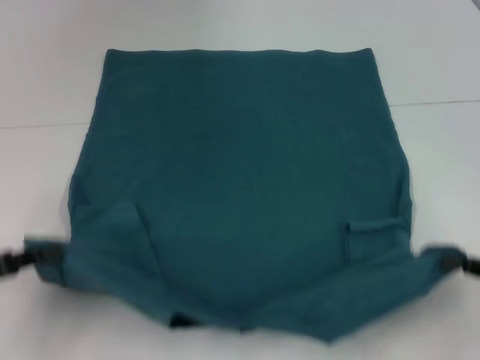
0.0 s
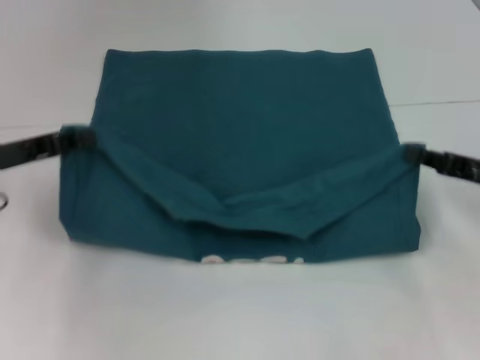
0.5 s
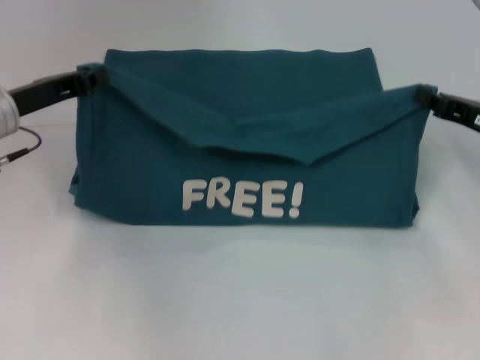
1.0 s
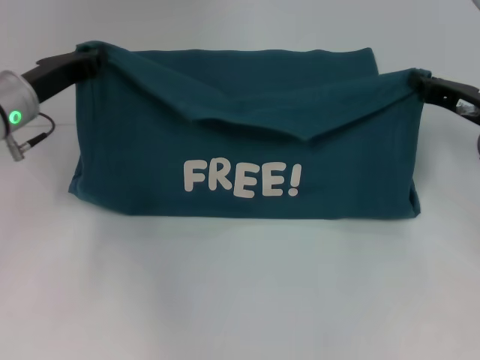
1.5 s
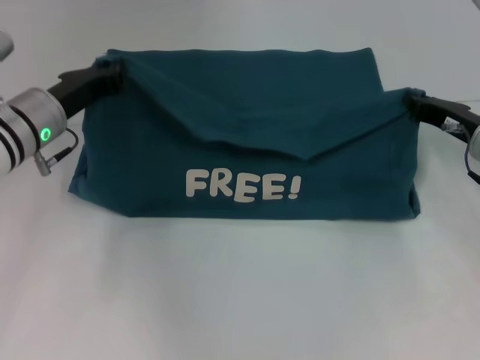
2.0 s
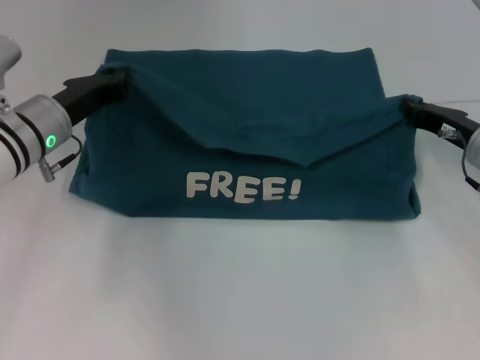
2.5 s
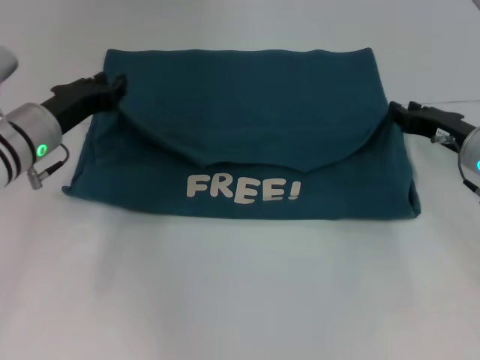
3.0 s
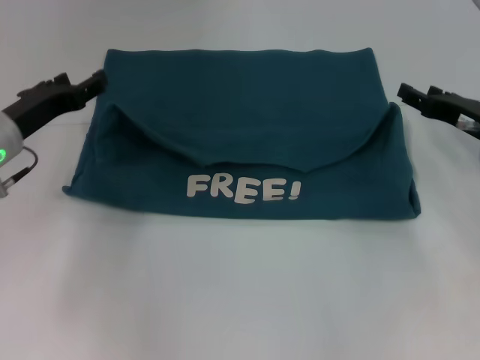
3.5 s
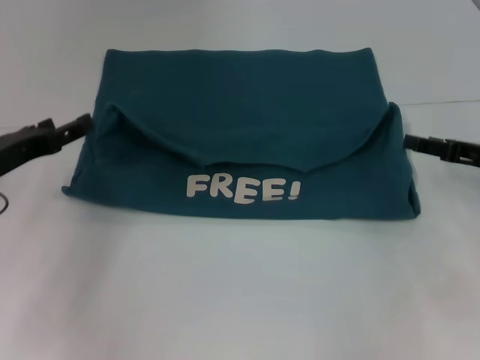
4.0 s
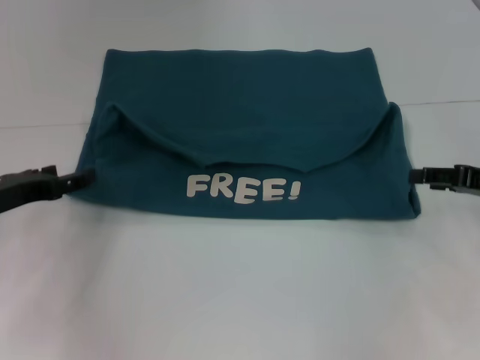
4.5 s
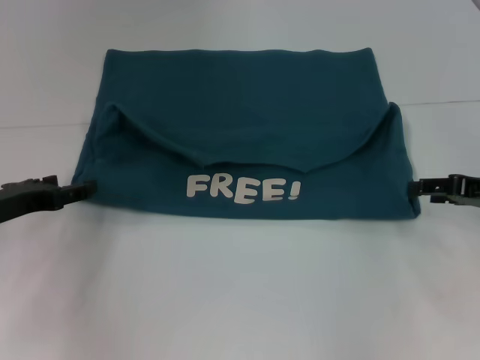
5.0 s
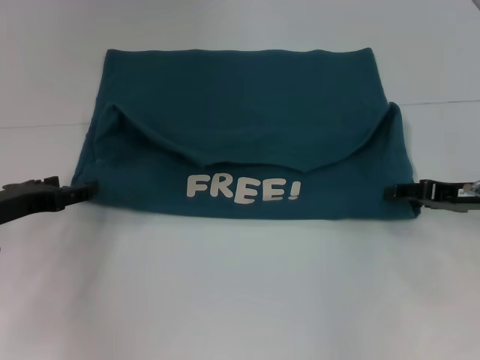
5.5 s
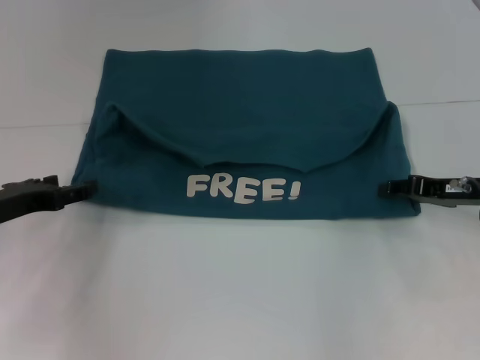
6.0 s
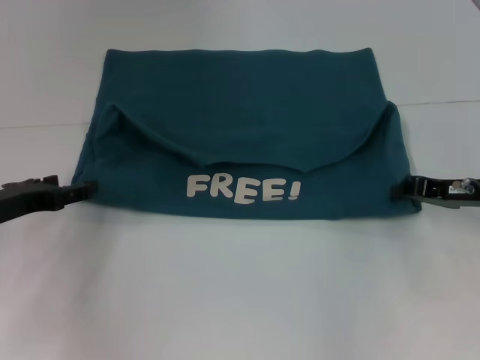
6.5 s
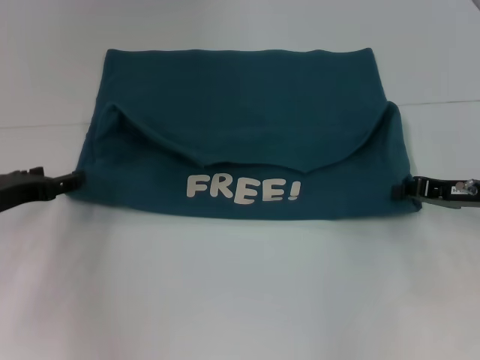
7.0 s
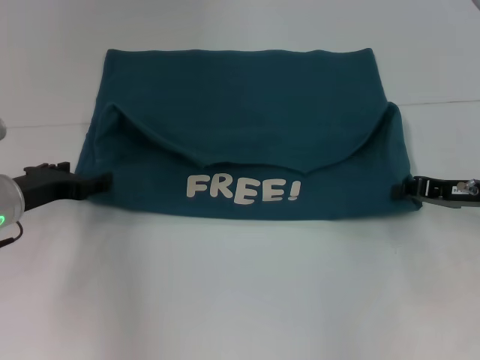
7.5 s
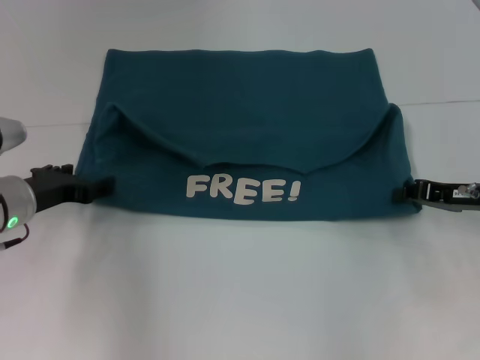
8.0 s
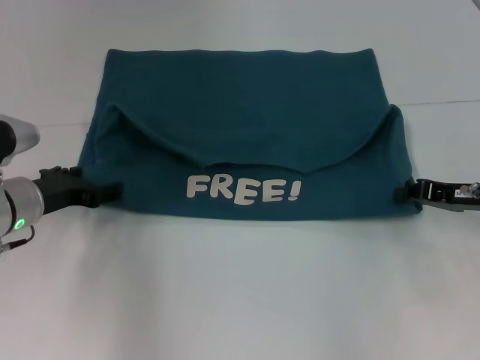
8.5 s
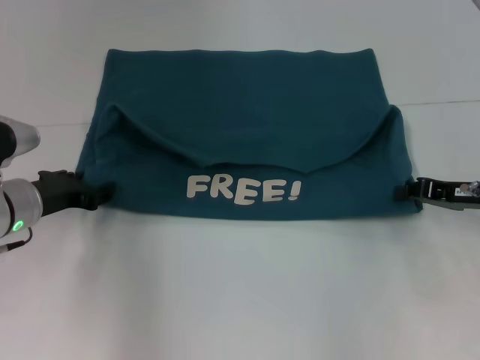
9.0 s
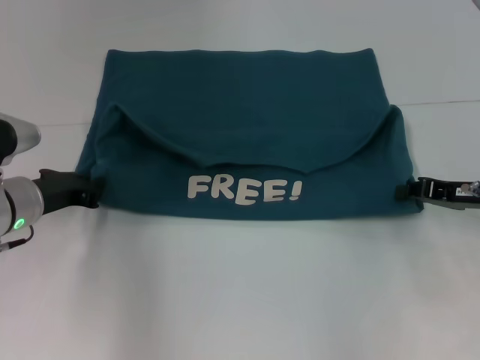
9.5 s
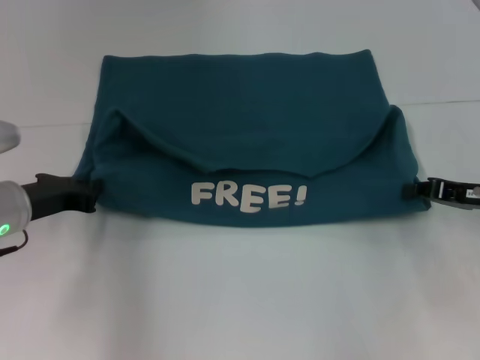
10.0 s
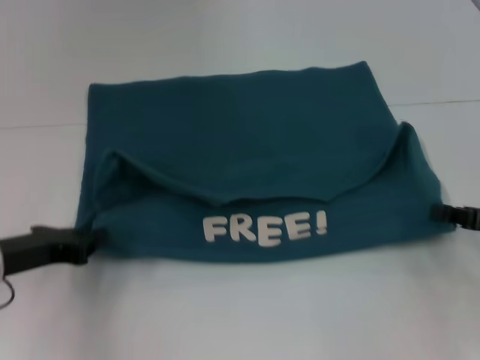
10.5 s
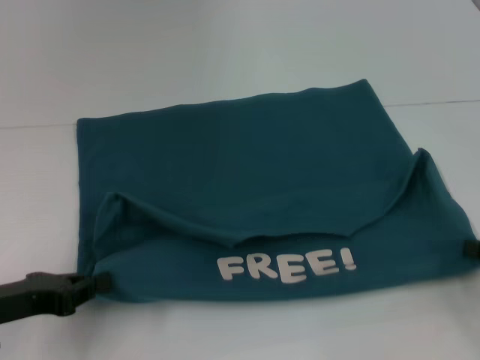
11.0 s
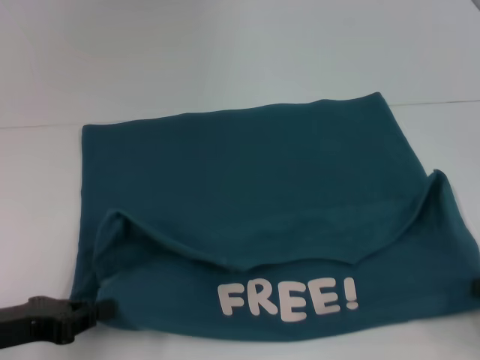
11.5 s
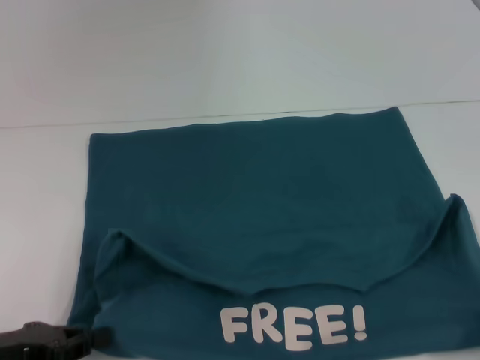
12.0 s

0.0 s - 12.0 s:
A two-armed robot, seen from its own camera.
Step, 0.0 s - 3.5 s: Fold the clothes to the left.
Step, 0.0 s - 3.5 s: Fold the clothes to the right.
Step, 4.0 s - 11.5 s: Pull the clothes with your left hand.
Step, 4.0 s - 11.5 s: Pull the clothes with your right hand.
0.0 s - 2.0 s: The left gripper is displaced forward and to the right by some 20 cm. Meanwhile the right gripper travels forward by approximately 20 cm.
2.0 s - 4.0 s: The right gripper changes place by roughly 5 cm, and opens; the left gripper goes roughly 10 cm to the left and backward, and opens its fingers.
4.0 s - 6.0 s: The grippers move only a little.
6.0 s - 8.0 s: The left gripper changes place by about 5 cm, while the right gripper closes up.
8.0 s - 10.0 s: The left gripper closes.
10.0 s - 12.0 s: The grippers both shift backward by some 15 cm.

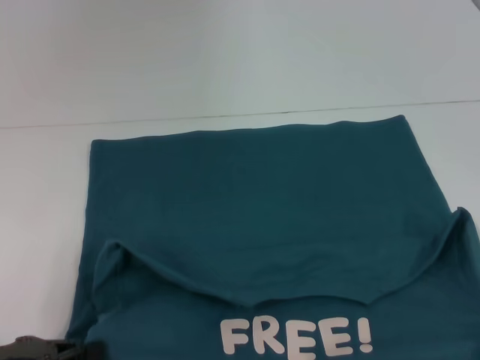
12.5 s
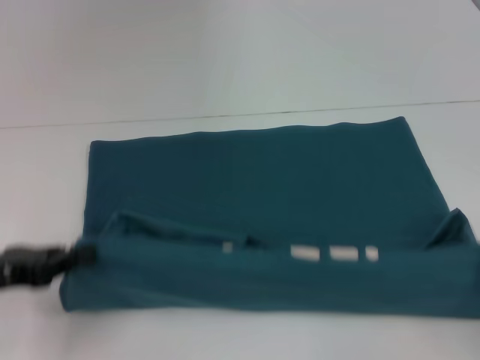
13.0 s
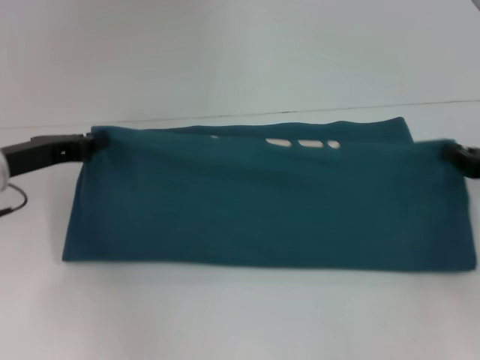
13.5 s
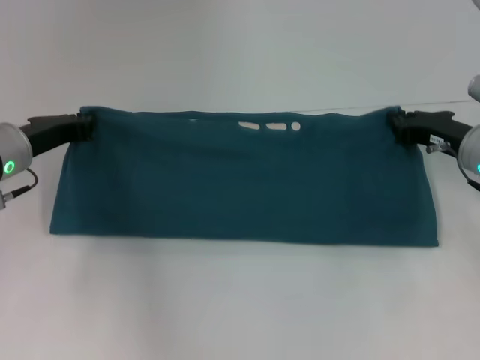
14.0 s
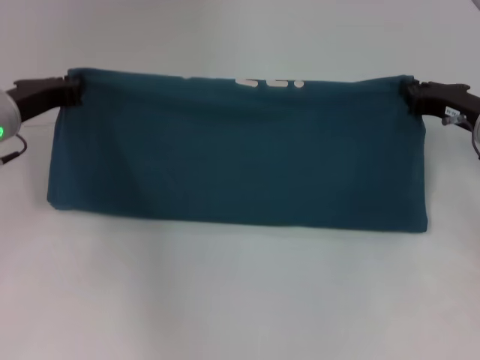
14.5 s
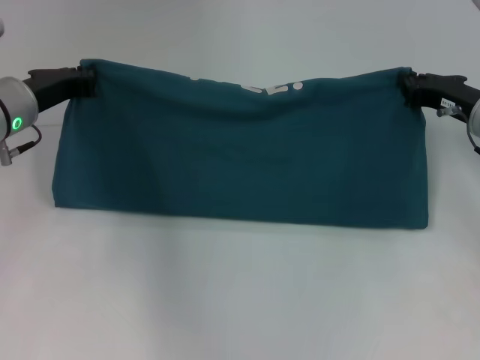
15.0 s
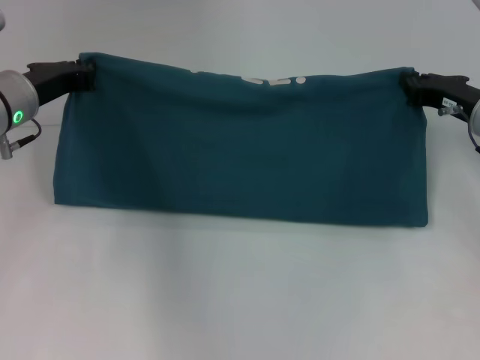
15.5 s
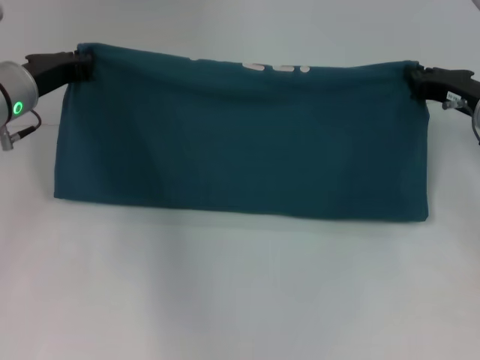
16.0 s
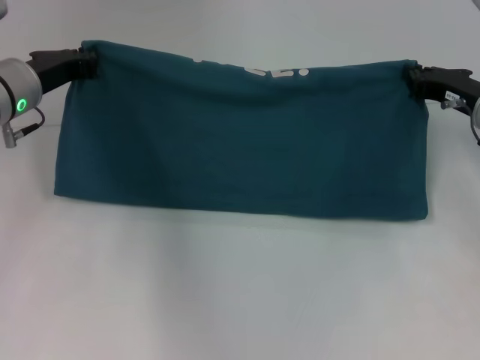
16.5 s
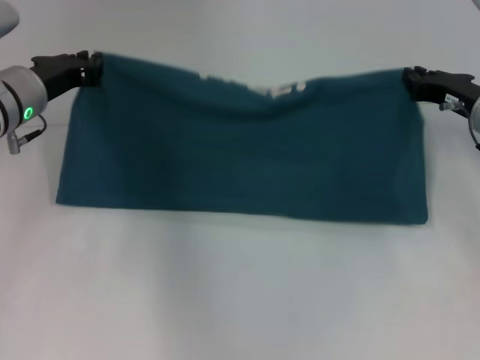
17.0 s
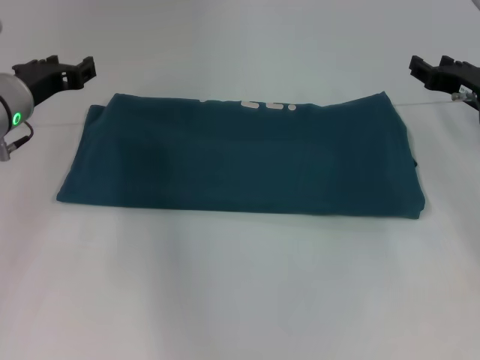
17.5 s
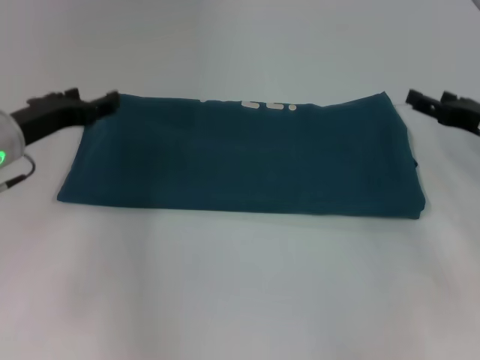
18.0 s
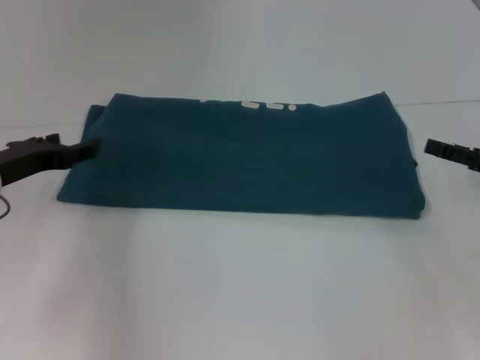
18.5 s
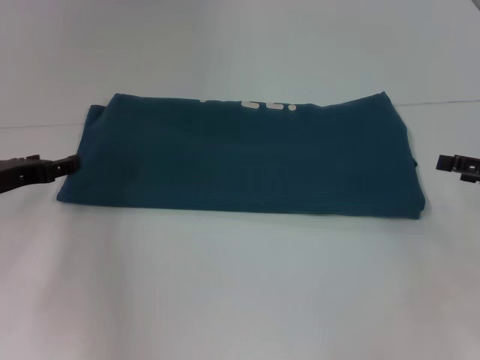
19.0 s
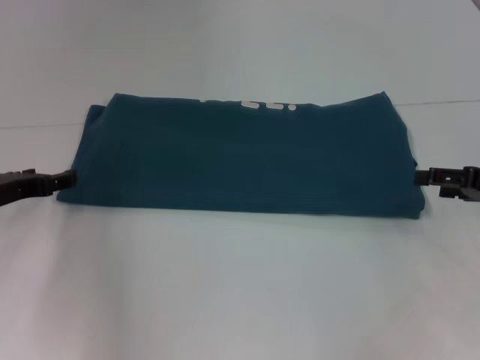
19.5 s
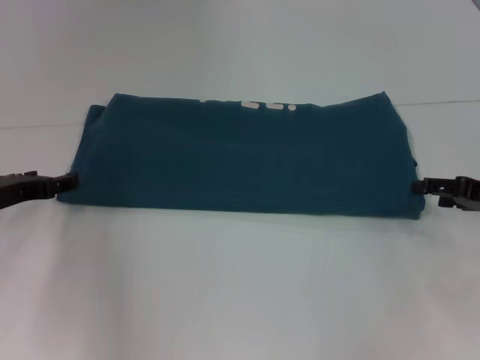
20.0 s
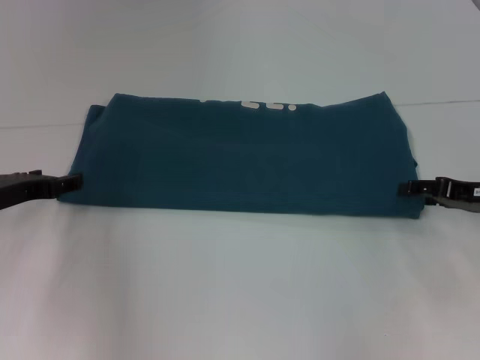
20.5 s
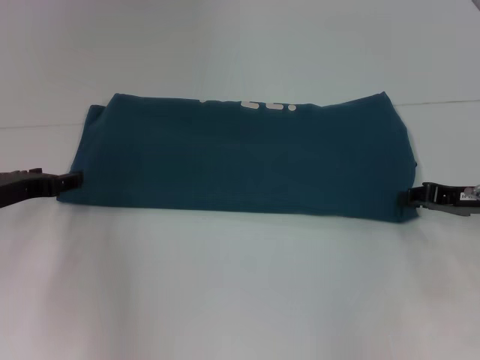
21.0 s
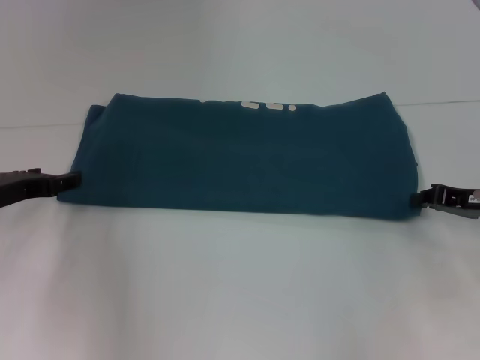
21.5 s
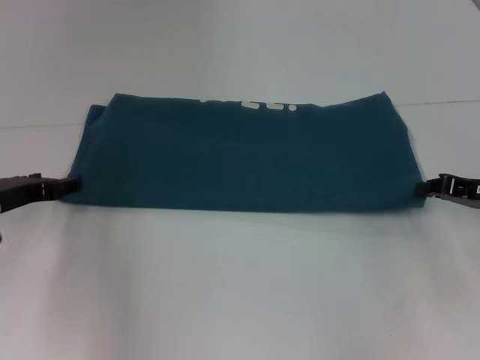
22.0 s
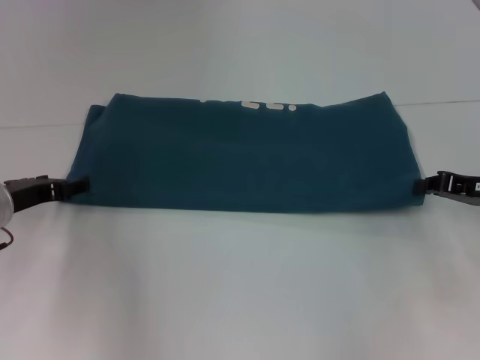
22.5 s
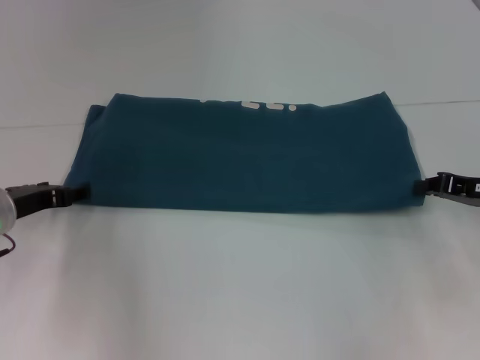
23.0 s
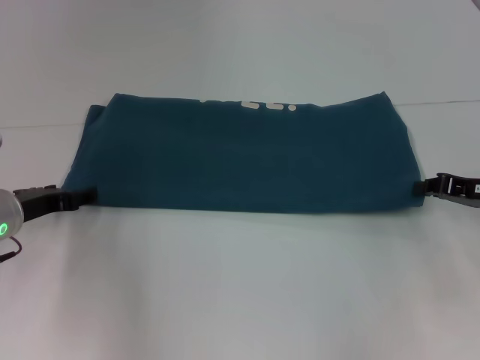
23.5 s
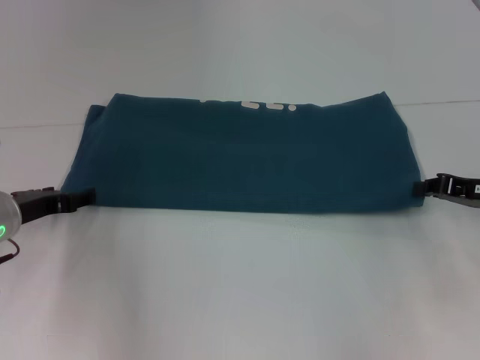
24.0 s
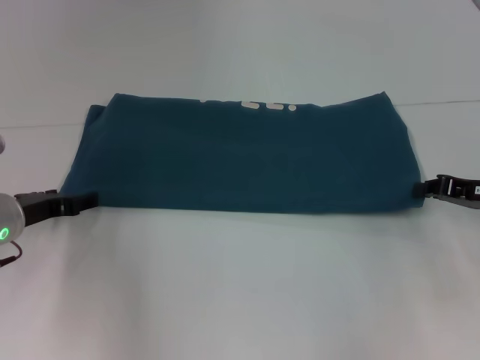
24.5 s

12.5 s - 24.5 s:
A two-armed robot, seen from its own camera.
Step, 12.5 s - 17.5 s: Fold the clothes to the left.
Step, 12.5 s - 17.5 s: Fold the clothes to the right.
12.5 s - 14.5 s: The grippers both shift forward by some 25 cm.
14.5 s - 16.5 s: The grippers stay close to where they were, moving slightly.
16.5 s - 18.5 s: The right gripper moves backward and to the right, about 10 cm, and opens up, while the left gripper moves backward, approximately 5 cm, and opens its fingers.
20.5 s - 22.5 s: The right gripper closes.
22.5 s - 24.5 s: The grippers make only small movements.

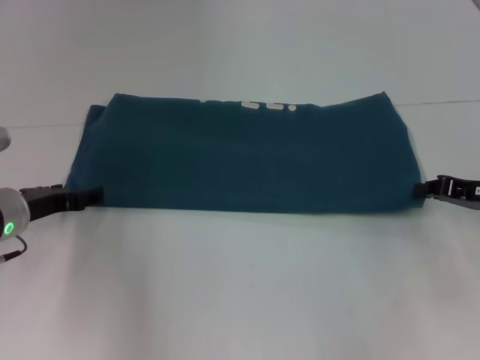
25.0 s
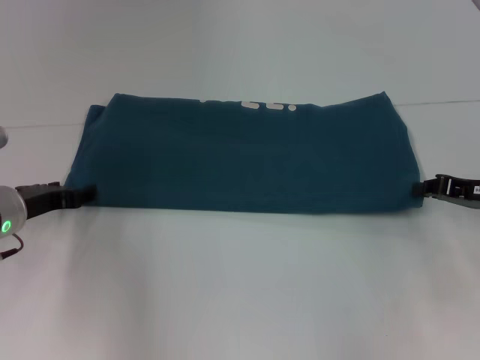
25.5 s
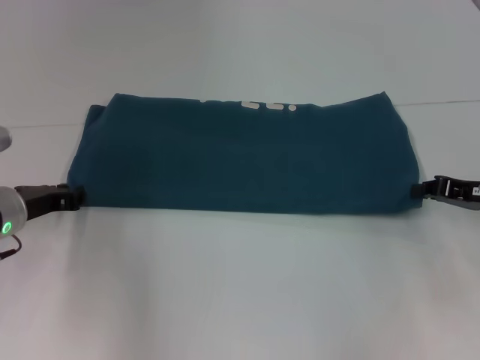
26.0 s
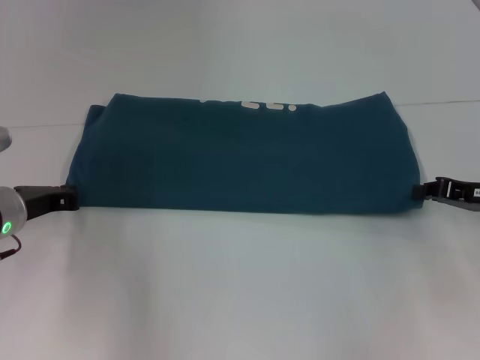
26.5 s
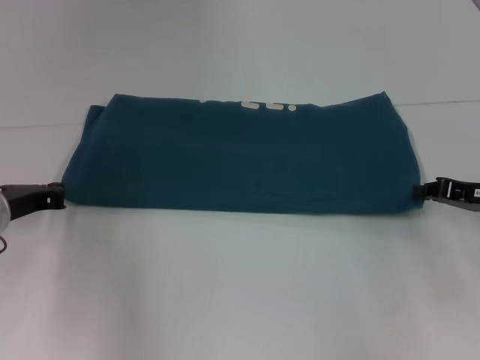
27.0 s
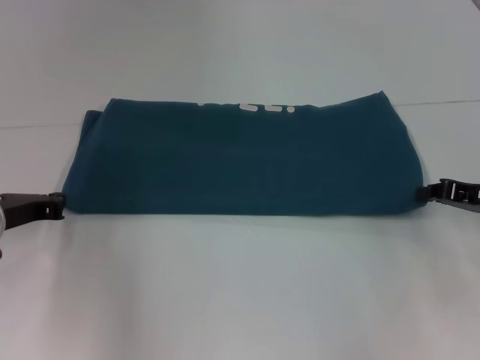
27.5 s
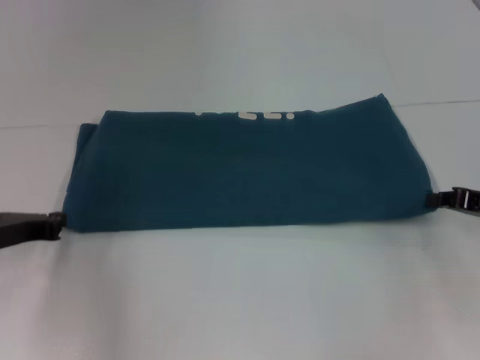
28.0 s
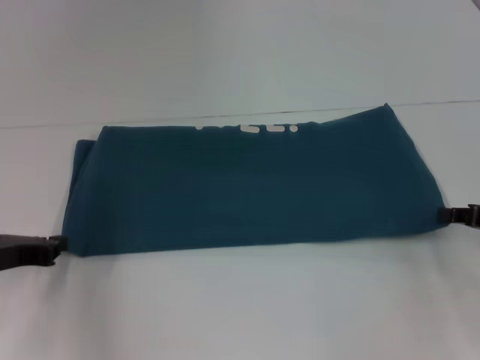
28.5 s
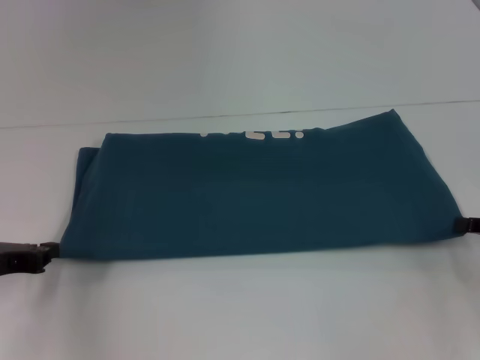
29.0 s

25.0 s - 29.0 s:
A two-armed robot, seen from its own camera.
25.0 s - 27.0 s: The left gripper closes.
27.0 s - 29.0 s: The two grippers go some 5 cm backward.
